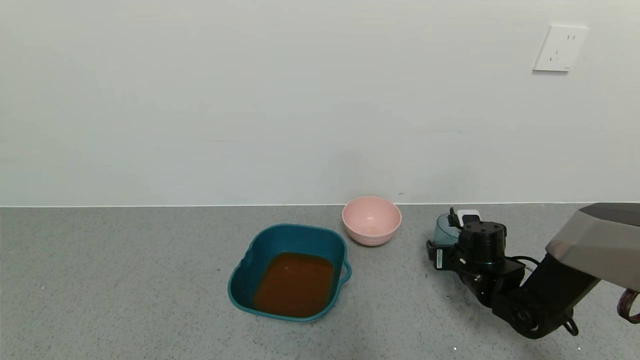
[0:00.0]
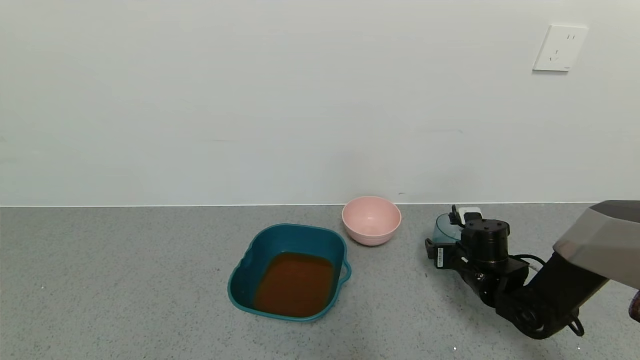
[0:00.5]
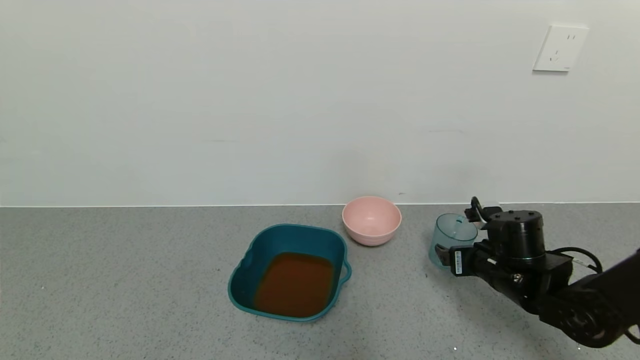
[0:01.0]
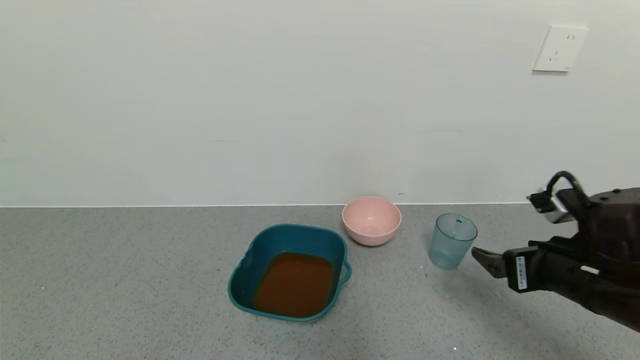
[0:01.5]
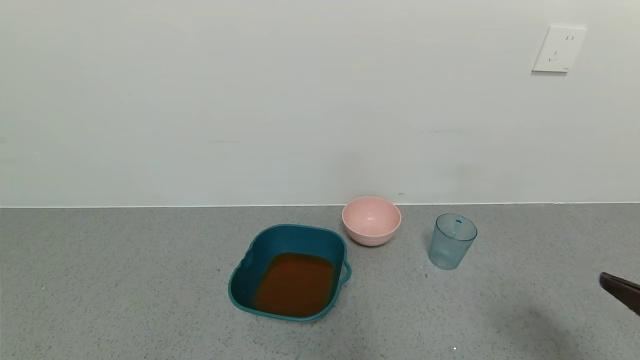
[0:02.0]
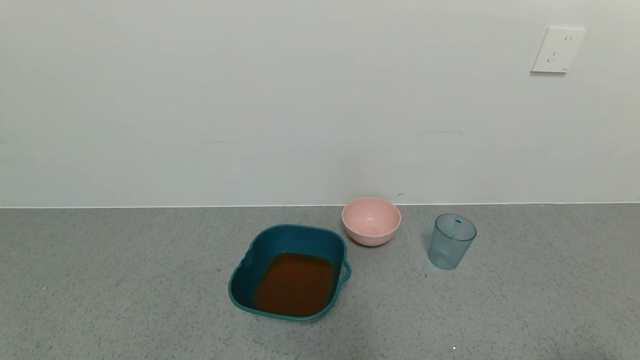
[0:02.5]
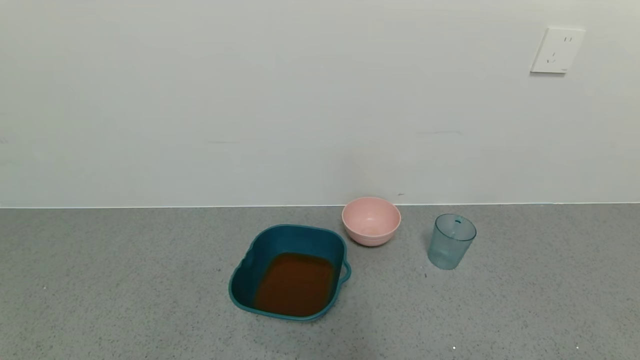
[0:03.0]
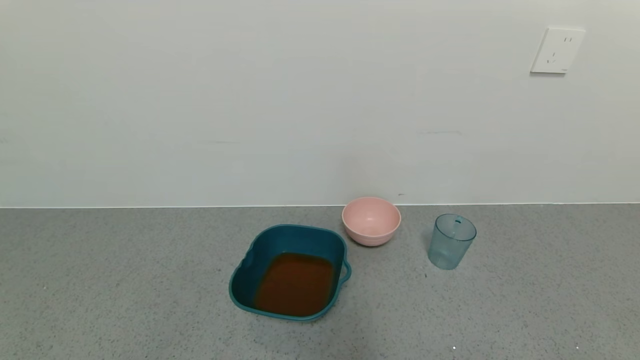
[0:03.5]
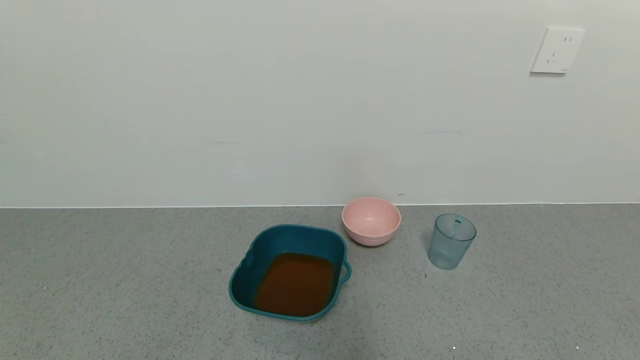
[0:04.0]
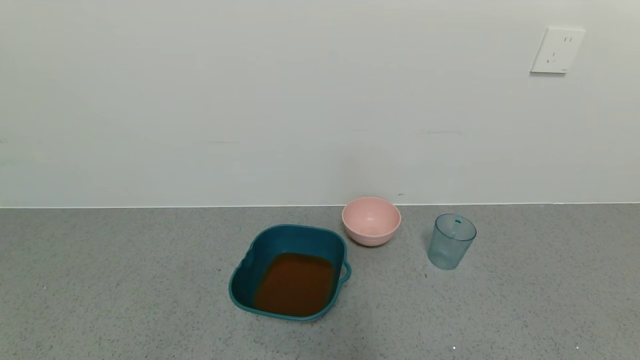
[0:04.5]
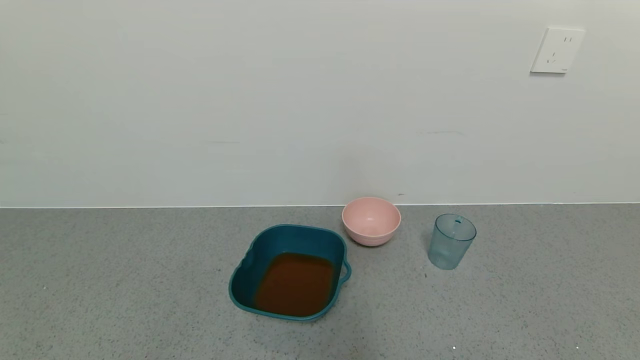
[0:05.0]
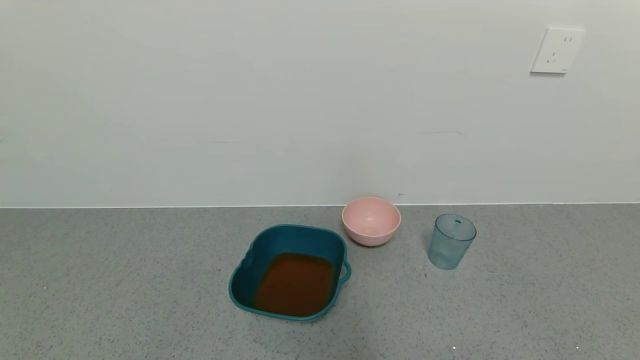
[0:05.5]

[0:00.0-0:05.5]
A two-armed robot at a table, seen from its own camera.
Task of the whole recording: use a gripper to pick up the cup and pour the liquid into a bowl or tray.
0:00.0 to 0:02.0: The right gripper travels backward and upward by about 35 cm, and opens.
0:02.0 to 0:03.5: The right gripper is displaced backward by approximately 10 cm.

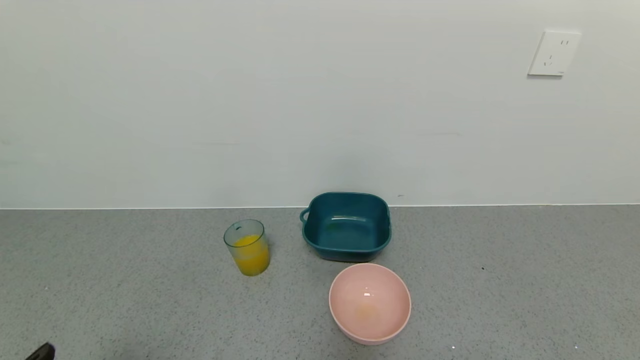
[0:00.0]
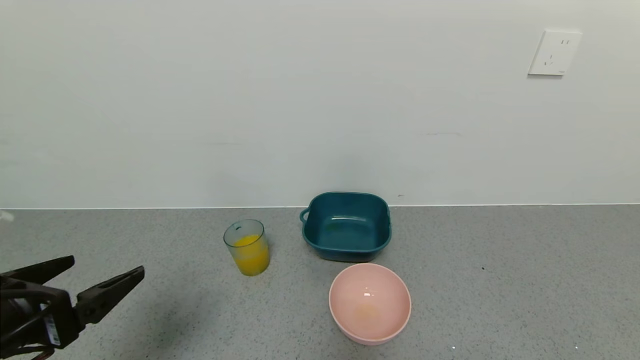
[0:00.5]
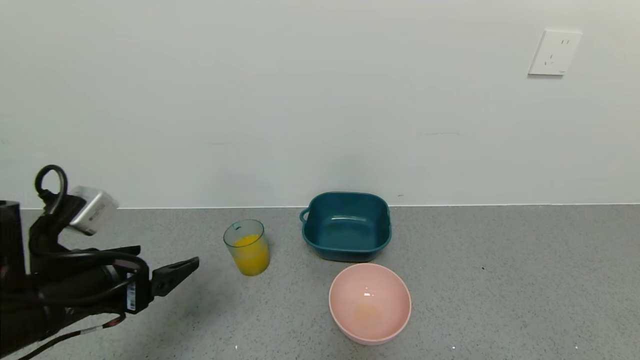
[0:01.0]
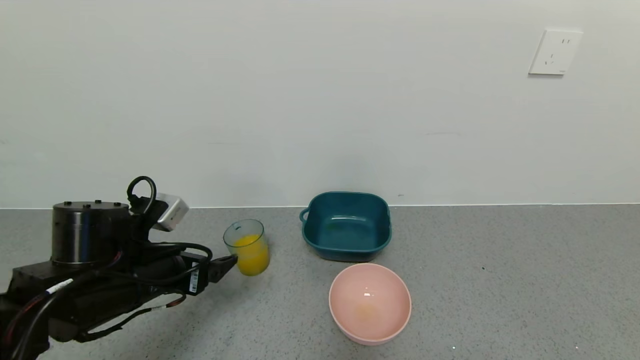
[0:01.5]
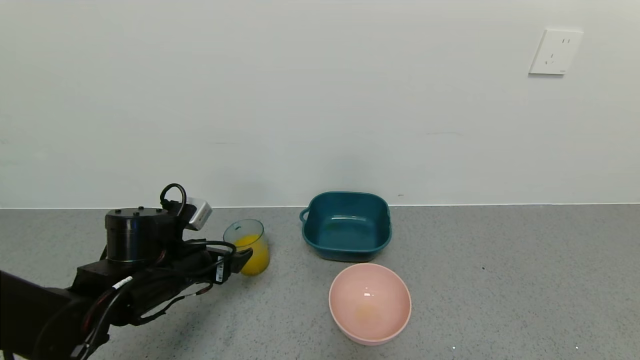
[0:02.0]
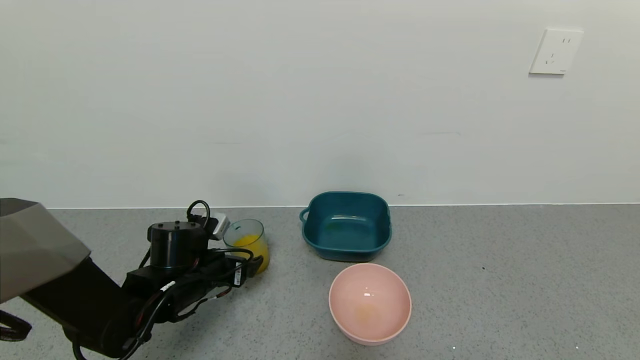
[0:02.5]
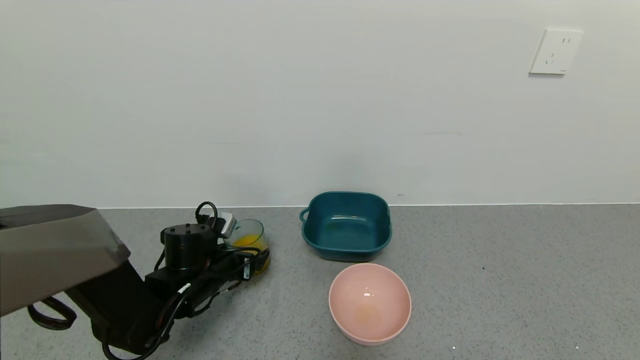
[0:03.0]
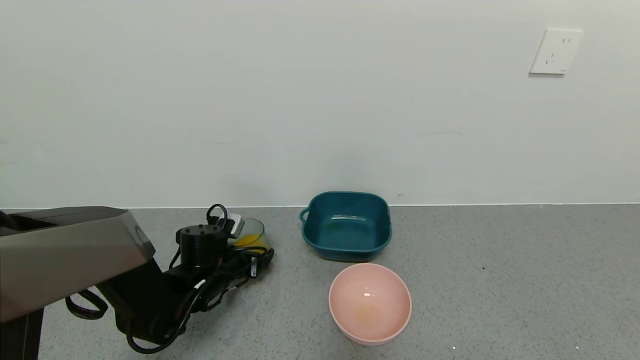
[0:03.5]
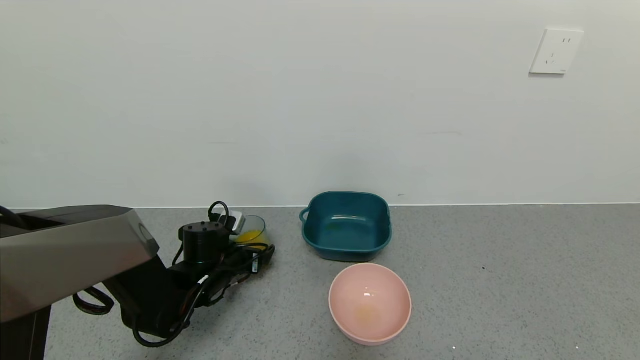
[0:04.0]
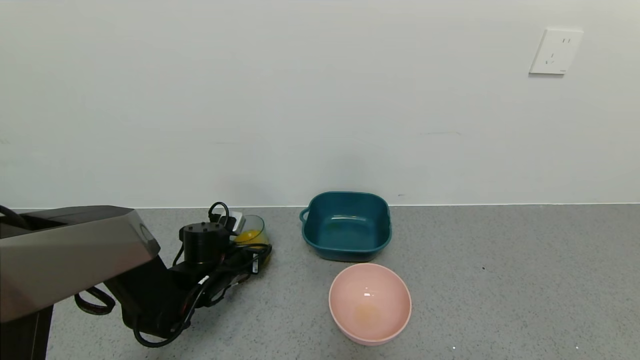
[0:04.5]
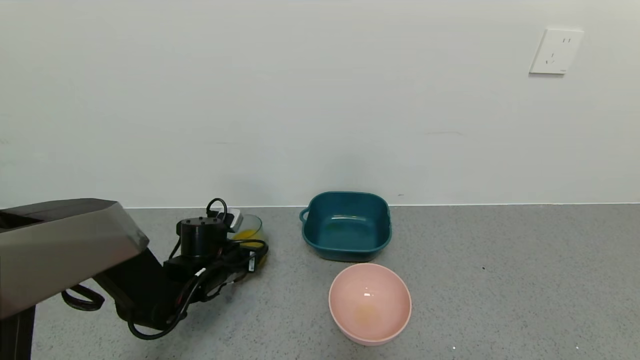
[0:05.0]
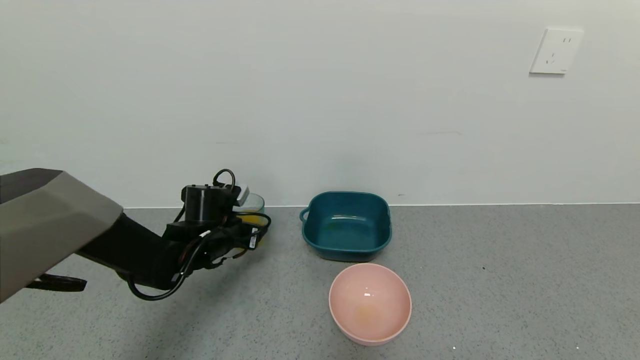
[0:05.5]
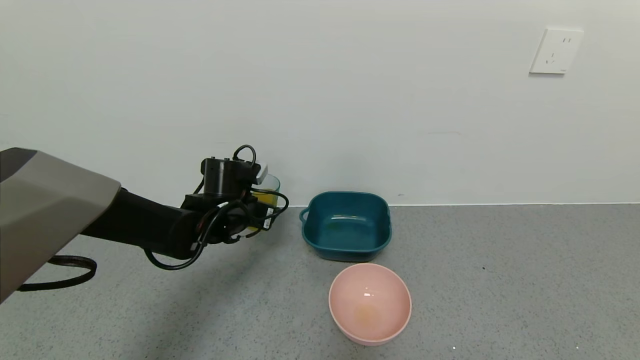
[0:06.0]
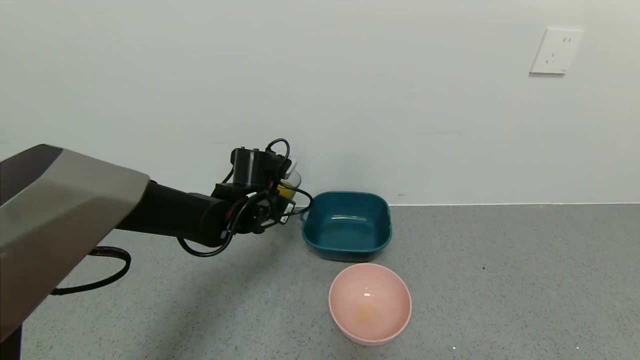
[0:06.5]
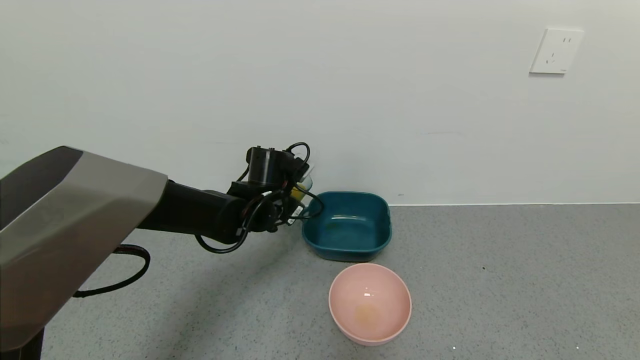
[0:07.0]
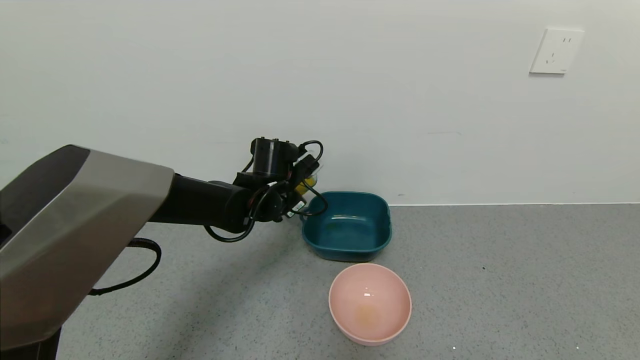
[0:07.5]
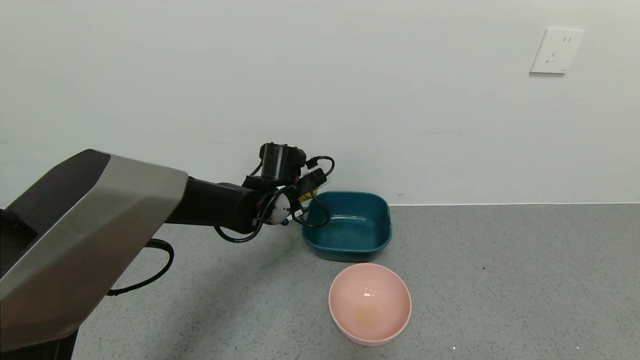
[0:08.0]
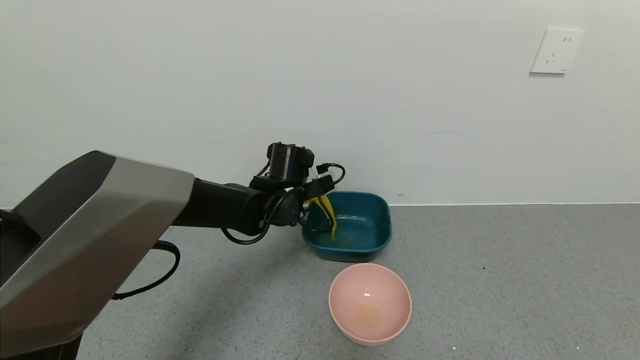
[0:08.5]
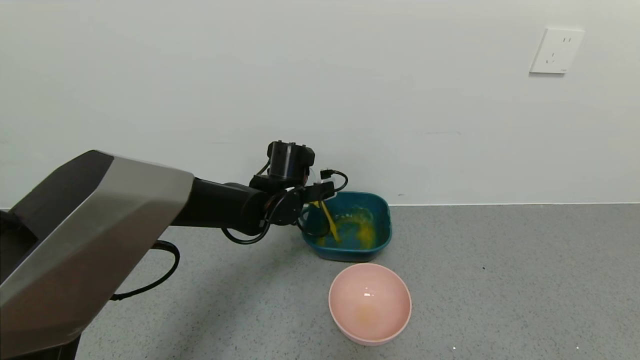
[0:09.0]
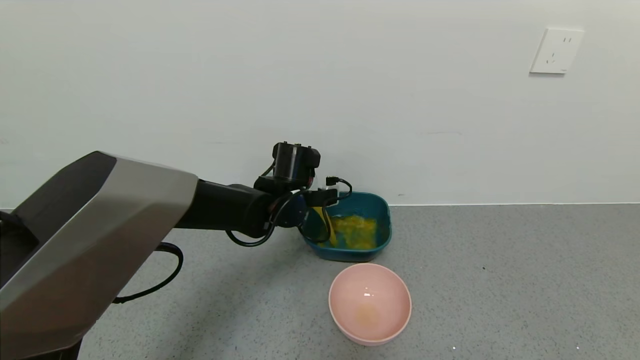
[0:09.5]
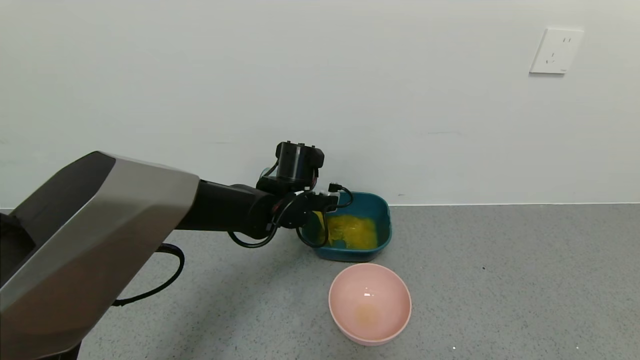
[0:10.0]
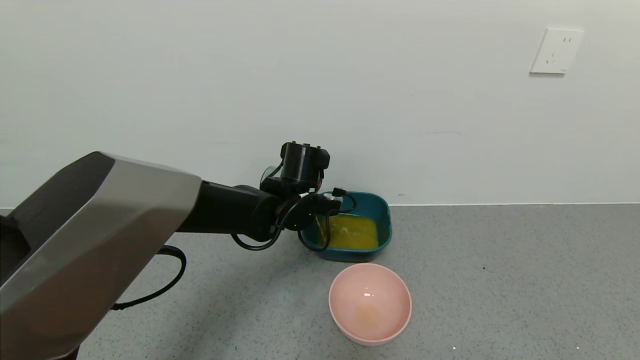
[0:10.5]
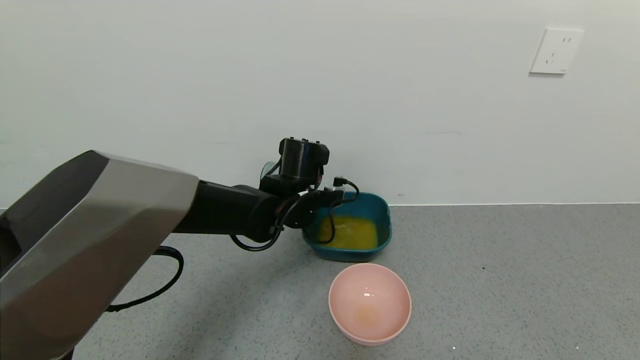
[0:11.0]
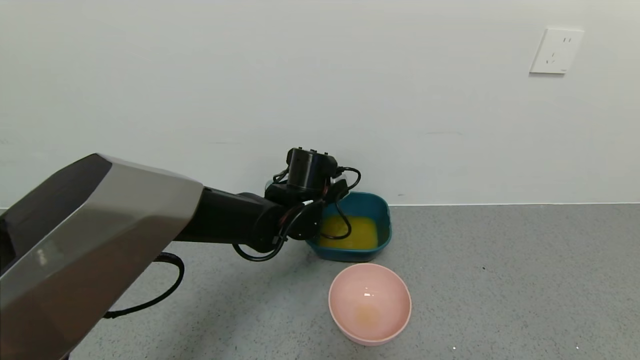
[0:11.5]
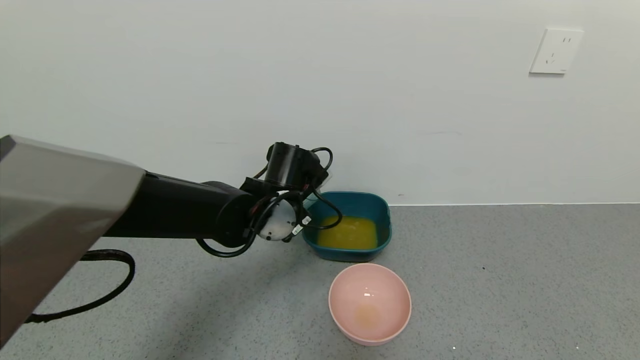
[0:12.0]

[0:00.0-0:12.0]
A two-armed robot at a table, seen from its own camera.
Task of the whole recording: use a gripper to pick up the cup and pour the liquid into a bowl or tray.
Step, 0:00.0 to 0:04.0: Grasp the glass of orange juice with the left gripper.
Step, 0:04.5 to 0:11.0: Pour the orange juice into the green bowl with the left gripper.
0:00.0 to 0:02.0: The left gripper travels forward by about 25 cm.
0:02.0 to 0:04.0: The left gripper heads downward and forward, covering about 10 cm.
0:04.0 to 0:06.0: The left gripper heads upward, covering some 10 cm, and closes its fingers.
0:06.0 to 0:08.0: The left gripper heads to the right, covering roughly 10 cm.
0:10.0 to 0:12.0: The left gripper ends up roughly 5 cm from where it was.

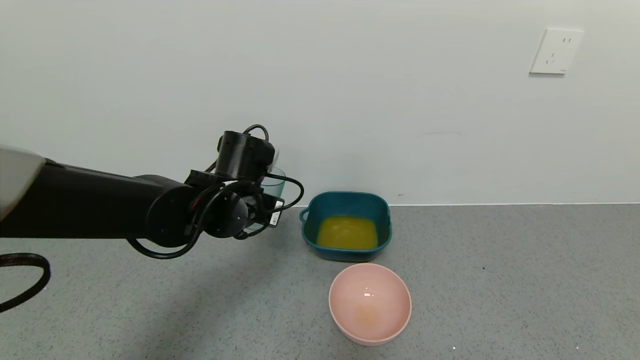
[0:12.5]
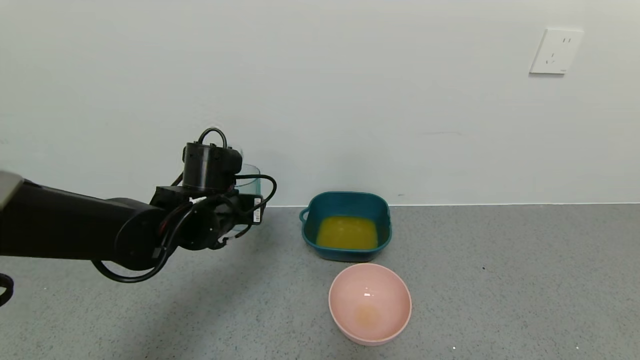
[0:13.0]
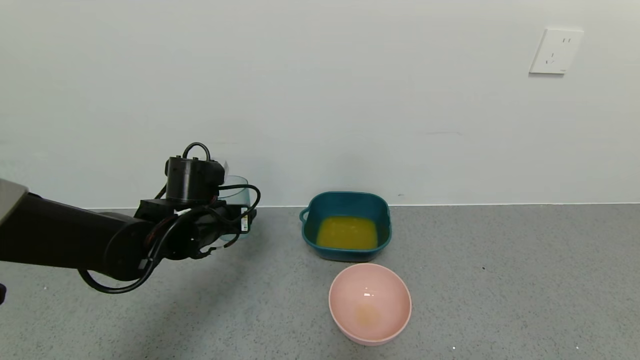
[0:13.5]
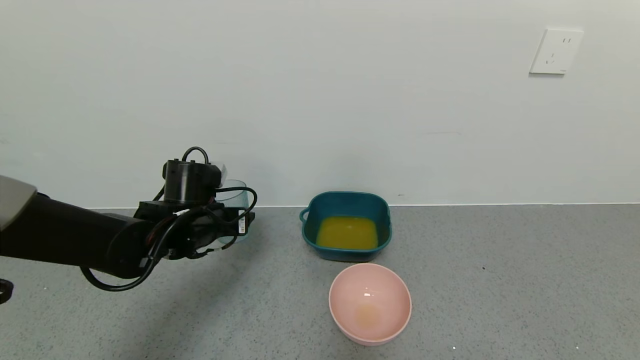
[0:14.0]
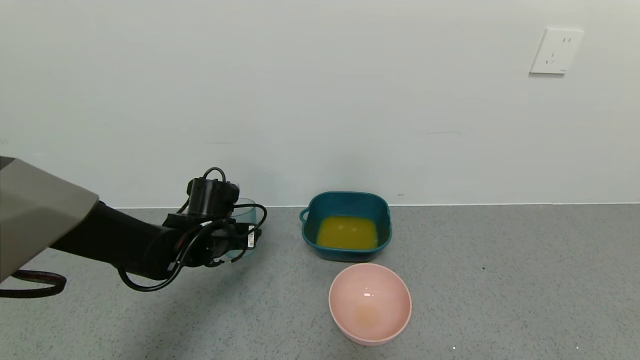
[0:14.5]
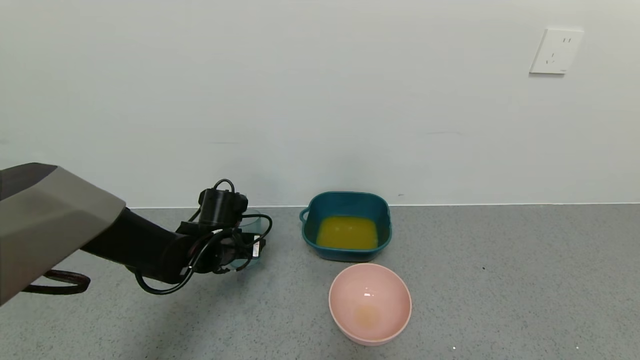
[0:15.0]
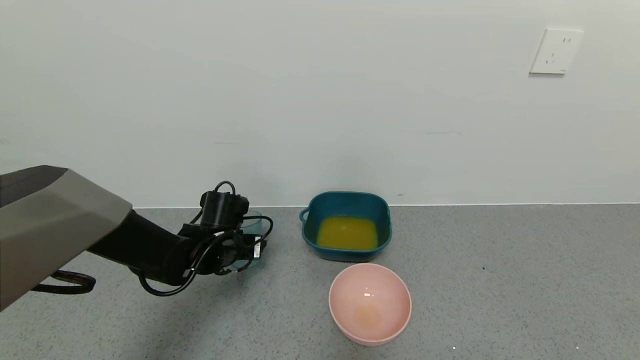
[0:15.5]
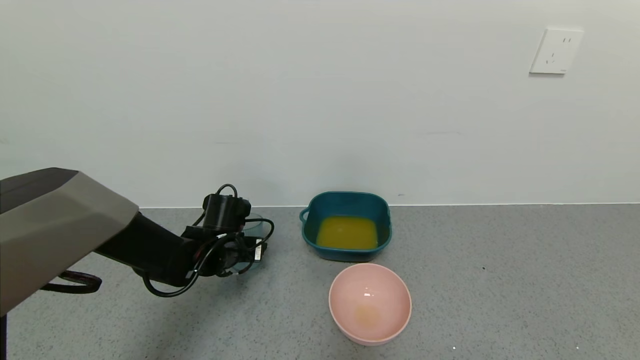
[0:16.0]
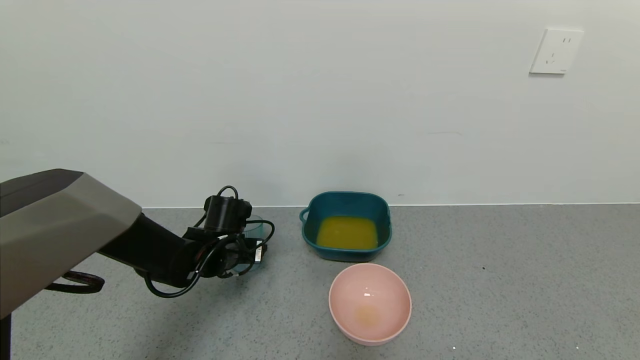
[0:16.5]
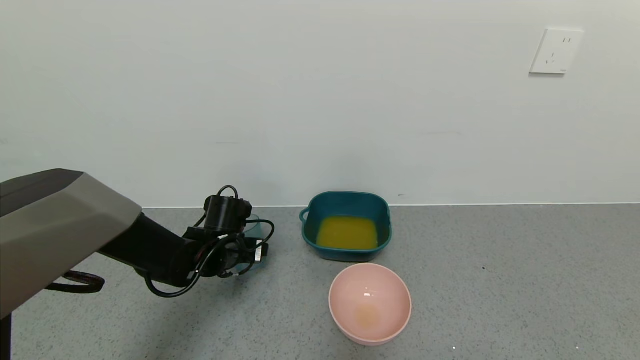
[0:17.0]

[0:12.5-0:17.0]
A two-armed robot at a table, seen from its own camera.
Task of the whole recording: use a gripper to pick up the cup and pour the liquid into a bowl or tray.
0:12.5 to 0:14.5: The left gripper shifts about 10 cm downward and to the left.
0:14.5 to 0:17.0: The left gripper opens its fingers.
